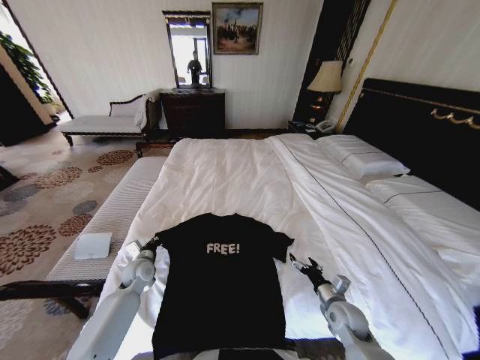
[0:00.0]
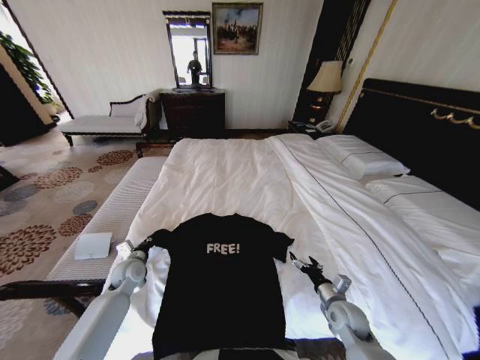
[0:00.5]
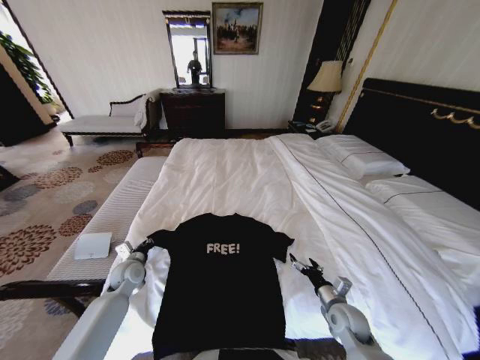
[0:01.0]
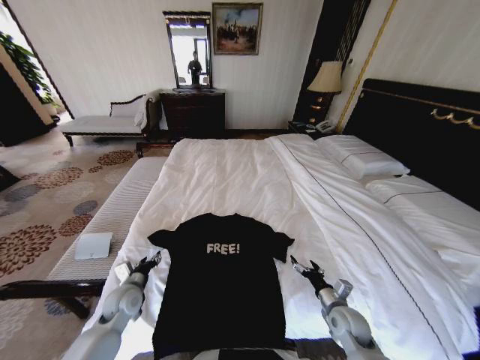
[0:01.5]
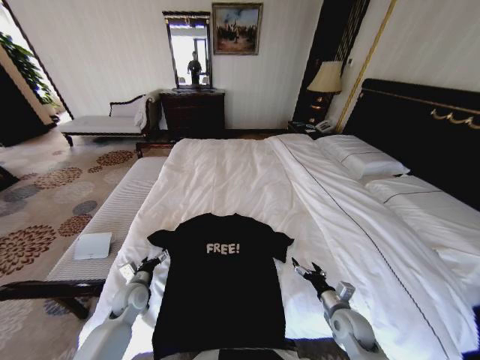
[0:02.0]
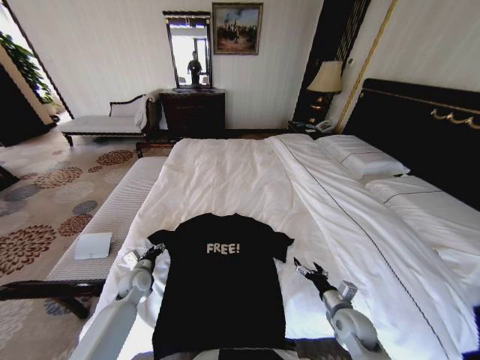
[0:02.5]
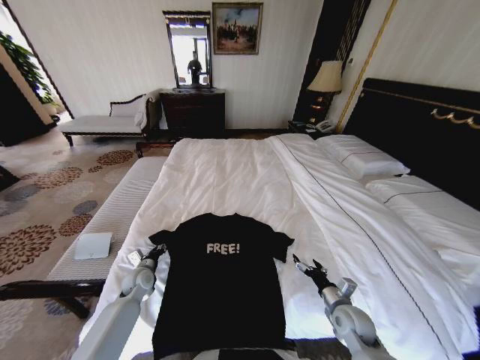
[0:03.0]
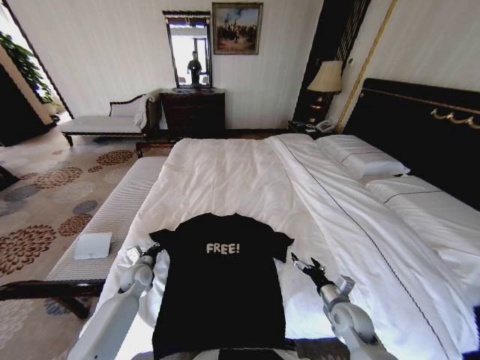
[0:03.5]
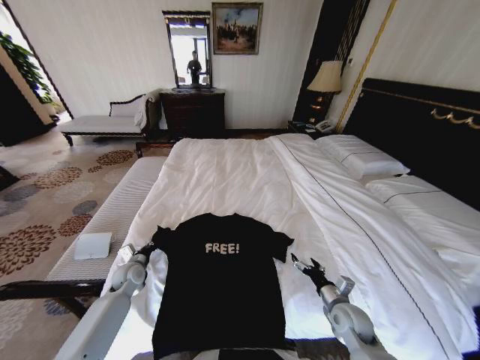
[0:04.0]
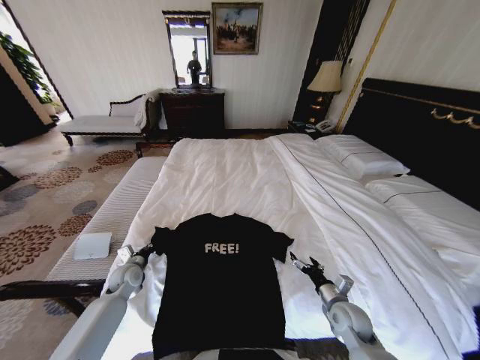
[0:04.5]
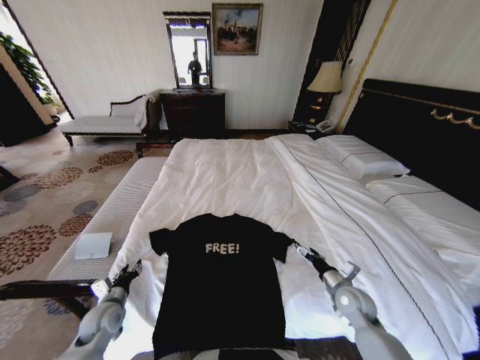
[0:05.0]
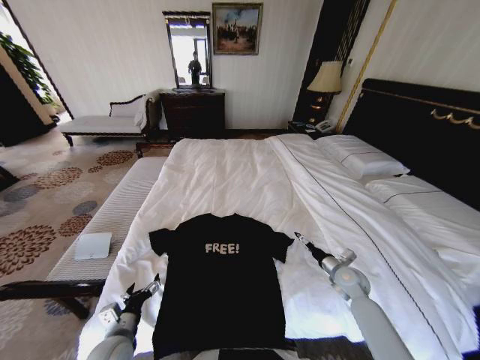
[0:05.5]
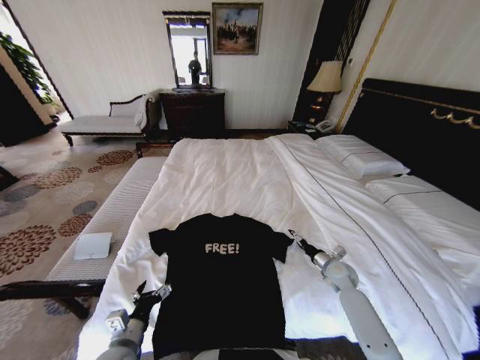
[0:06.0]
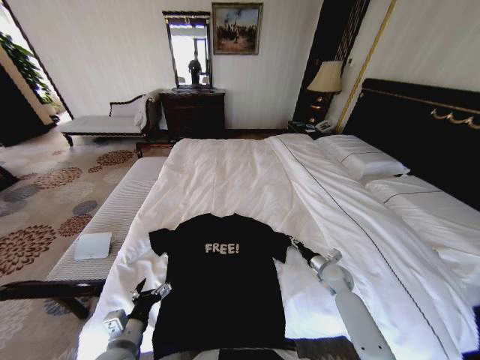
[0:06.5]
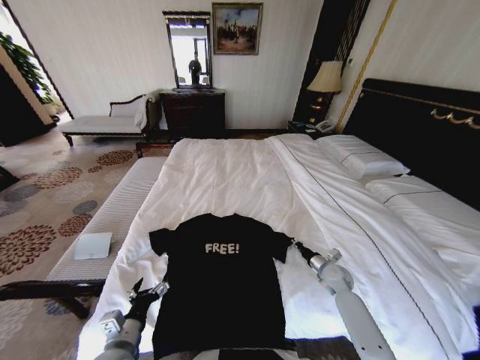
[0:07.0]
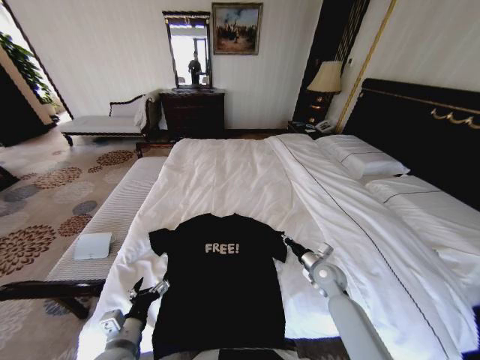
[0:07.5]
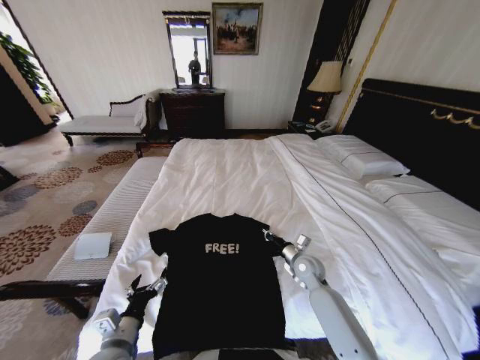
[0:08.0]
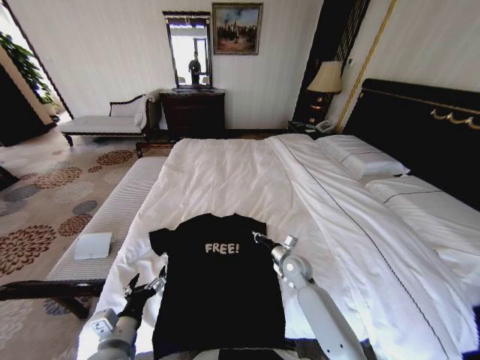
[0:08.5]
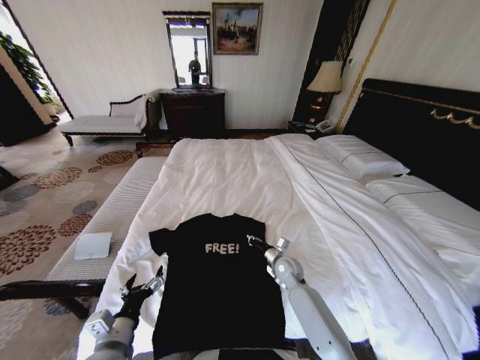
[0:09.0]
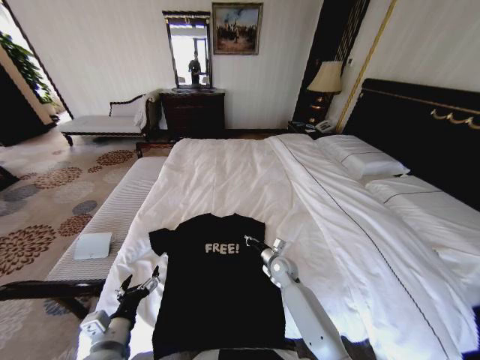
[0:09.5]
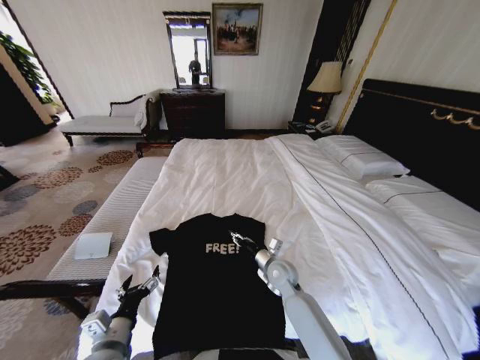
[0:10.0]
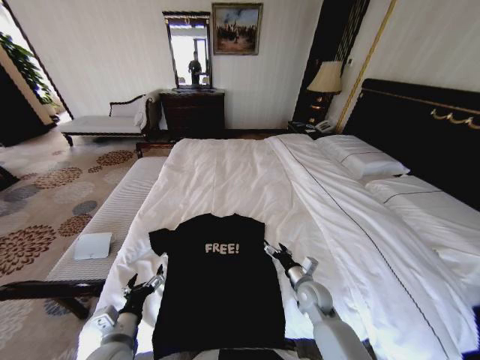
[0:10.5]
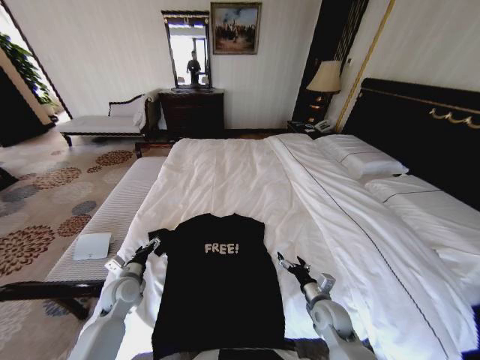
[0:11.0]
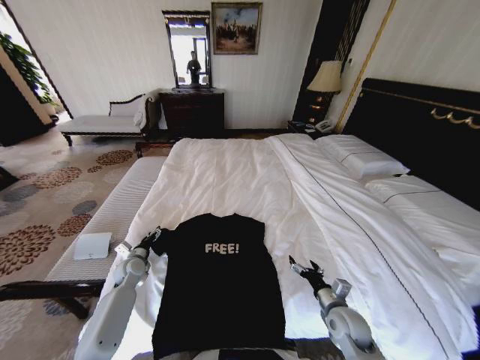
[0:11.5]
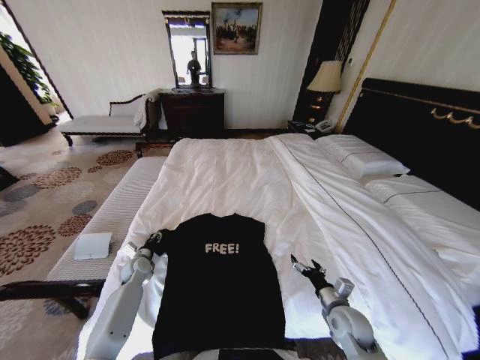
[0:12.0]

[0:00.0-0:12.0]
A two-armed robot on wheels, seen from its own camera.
Task of the whole recording: Fold the clothes on the bed.
0:00.0 to 0:02.0: The left gripper moves backward, about 5 cm, and opens.
0:02.0 to 0:04.0: The left gripper heads forward, covering approximately 5 cm, and closes up.
0:04.0 to 0:06.0: The right gripper is displaced forward and to the right by about 15 cm, while the left gripper goes some 25 cm backward, and opens its fingers.
0:06.0 to 0:08.0: The right gripper travels to the left by roughly 15 cm, and closes its fingers.
0:08.0 to 0:10.0: The right gripper is displaced to the left by approximately 10 cm, and opens its fingers.
0:10.0 to 0:12.0: The right gripper goes approximately 20 cm to the right and backward, and opens its fingers. Meanwhile the left gripper heads forward and downward, covering approximately 30 cm, and closes.

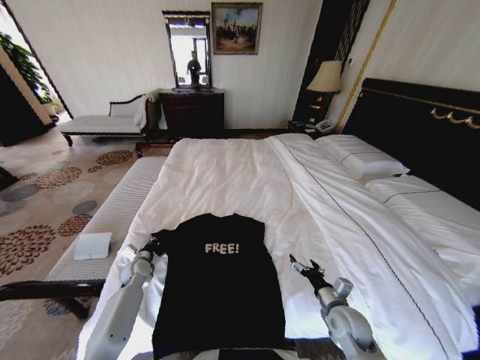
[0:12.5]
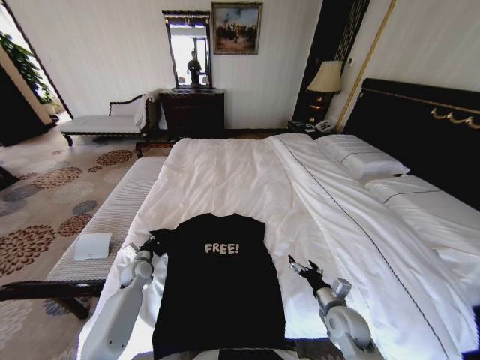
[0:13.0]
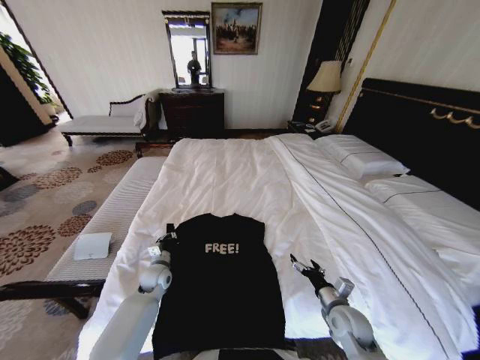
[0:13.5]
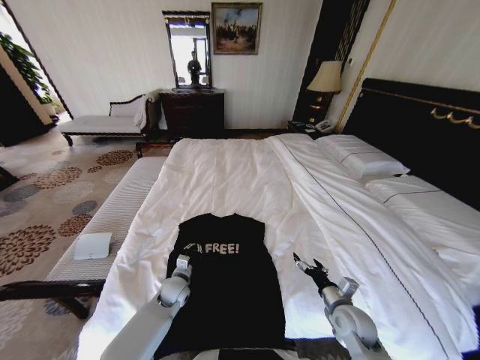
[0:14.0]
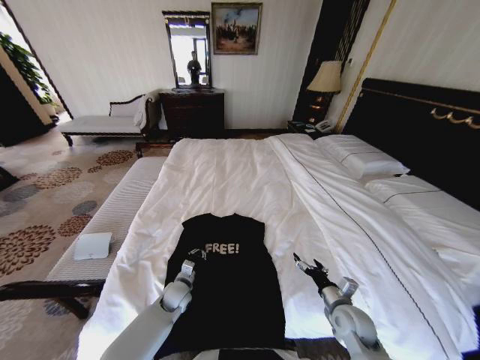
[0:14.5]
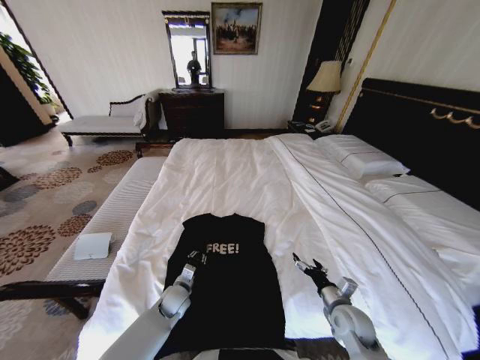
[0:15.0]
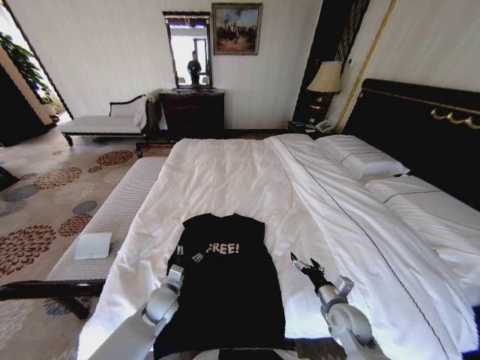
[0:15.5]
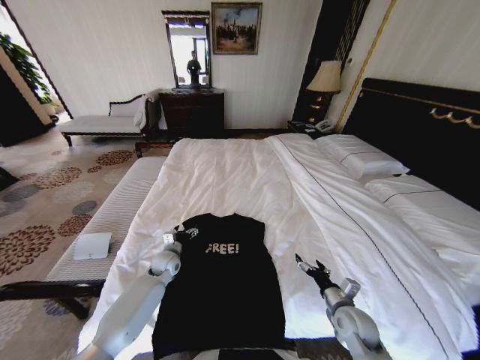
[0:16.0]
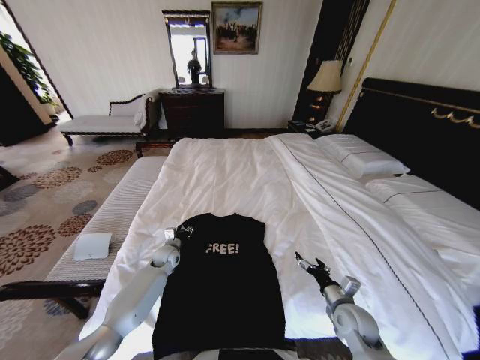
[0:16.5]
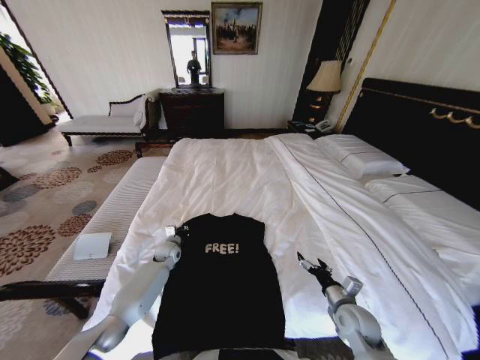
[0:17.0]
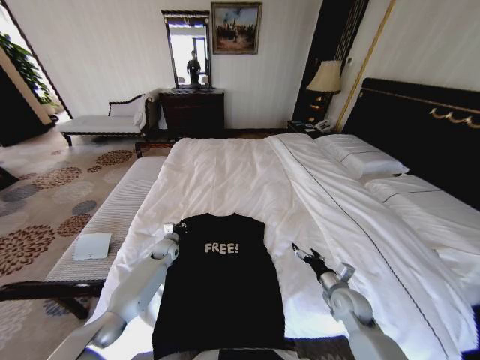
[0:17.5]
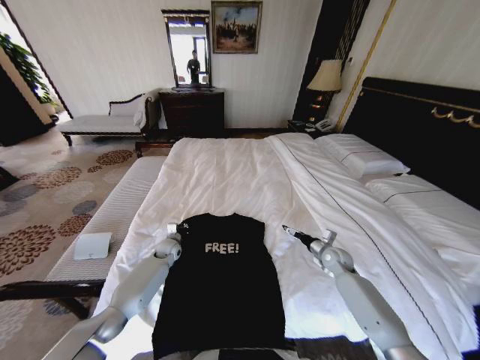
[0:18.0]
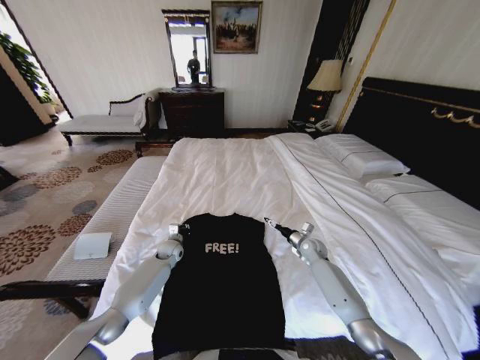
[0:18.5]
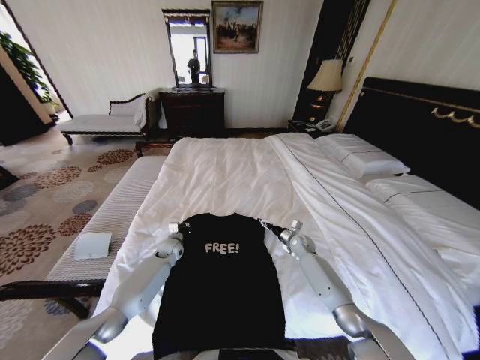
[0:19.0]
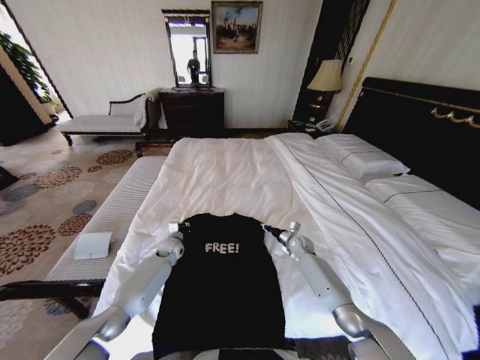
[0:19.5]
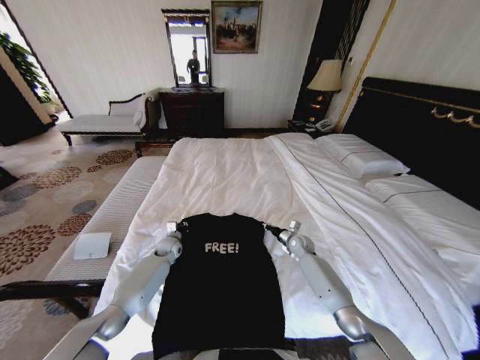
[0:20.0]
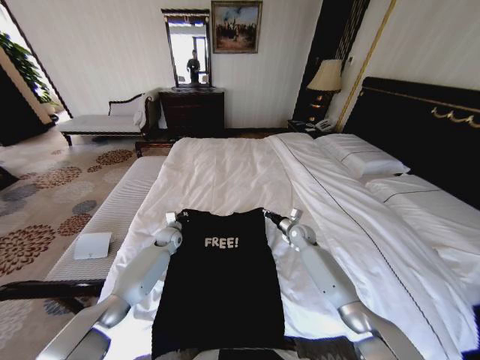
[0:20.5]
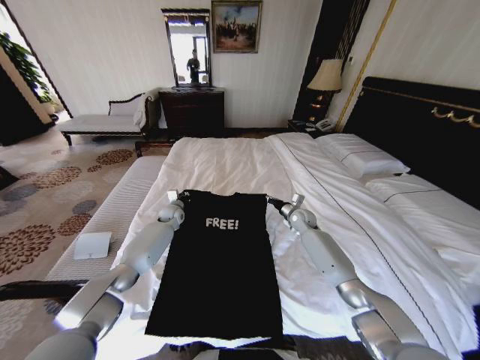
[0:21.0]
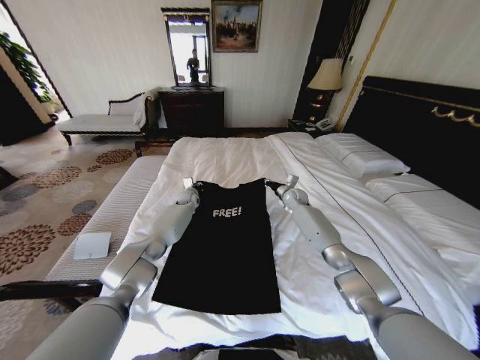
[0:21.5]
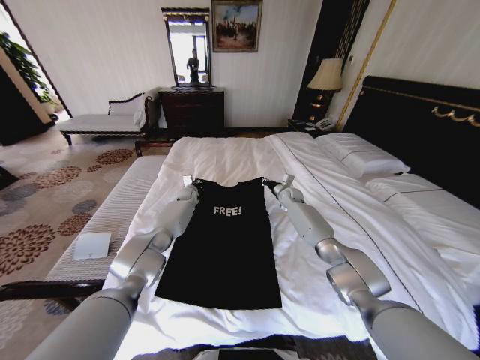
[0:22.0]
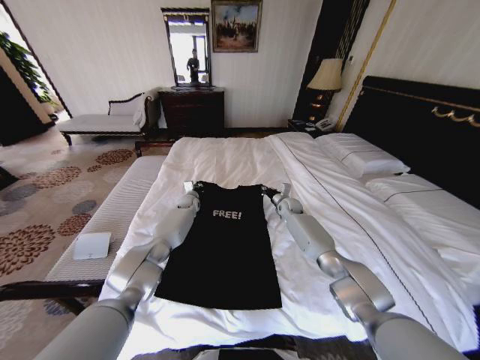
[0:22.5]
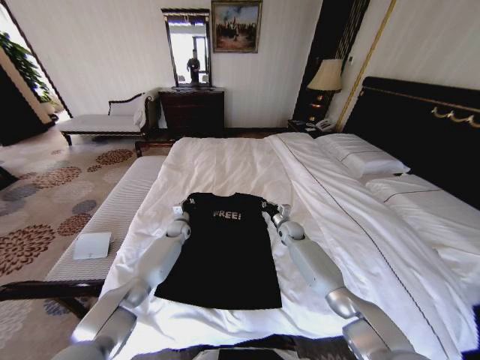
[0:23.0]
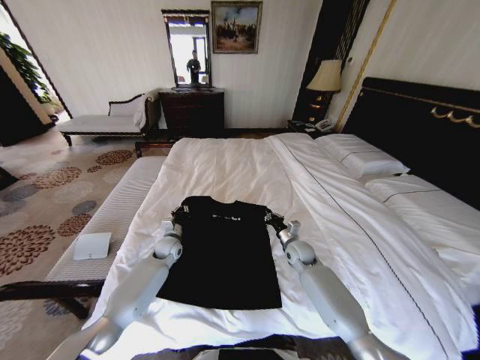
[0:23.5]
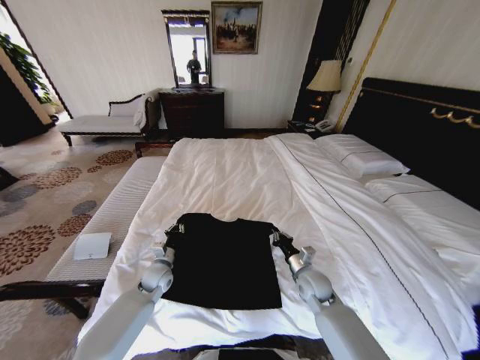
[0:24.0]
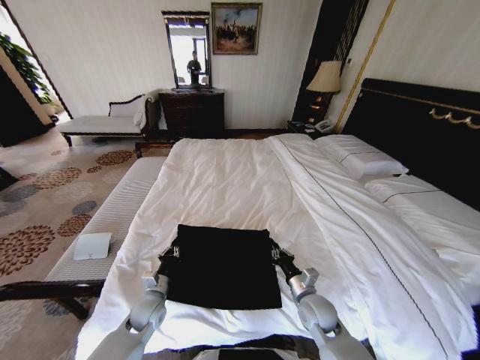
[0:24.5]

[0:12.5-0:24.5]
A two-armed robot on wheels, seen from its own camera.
Task of the whole recording: Fold the clothes on the bed.
0:12.5 to 0:14.5: The left gripper shifts about 20 cm to the right and backward.
0:14.5 to 0:16.5: The left gripper heads forward and to the left, covering roughly 15 cm, and opens its fingers.
0:16.5 to 0:18.5: The right gripper shifts approximately 25 cm forward; the left gripper closes its fingers.
0:18.5 to 0:20.5: The left gripper shifts by some 5 cm; the right gripper ends up about 10 cm from where it was, and closes its fingers.
0:20.5 to 0:22.5: The left gripper shifts roughly 15 cm forward and to the right; the right gripper travels forward by roughly 10 cm.
0:22.5 to 0:24.5: Both grippers travel together backward, about 40 cm.

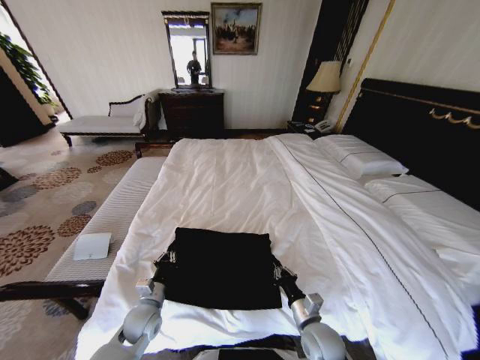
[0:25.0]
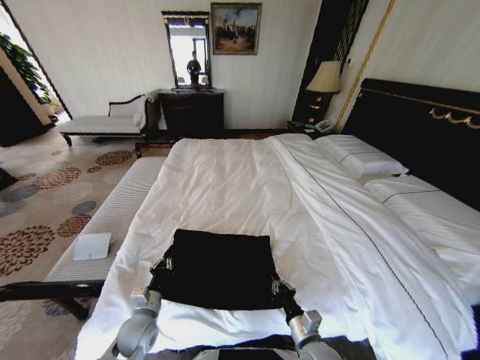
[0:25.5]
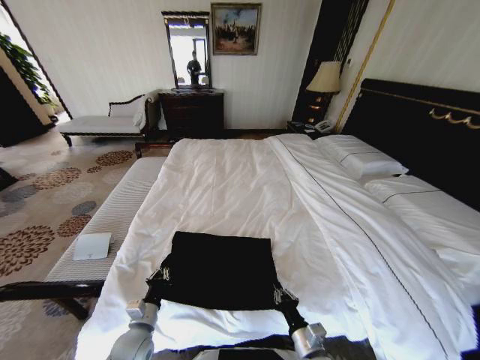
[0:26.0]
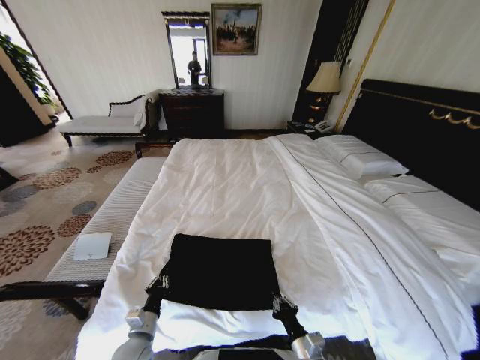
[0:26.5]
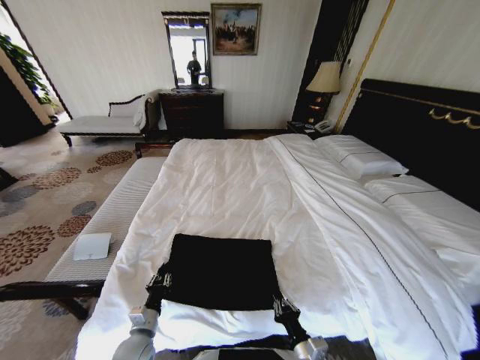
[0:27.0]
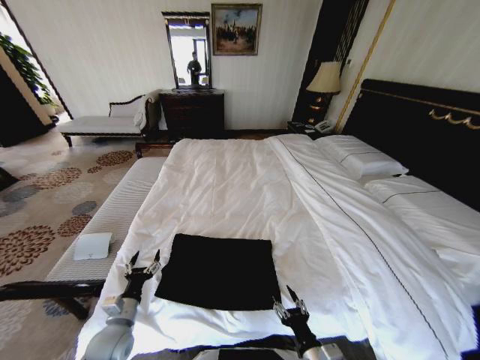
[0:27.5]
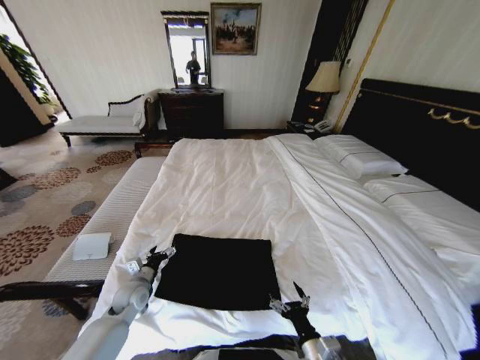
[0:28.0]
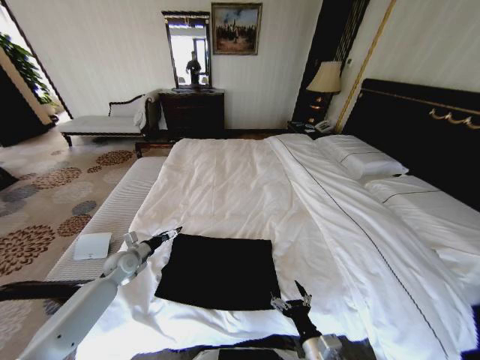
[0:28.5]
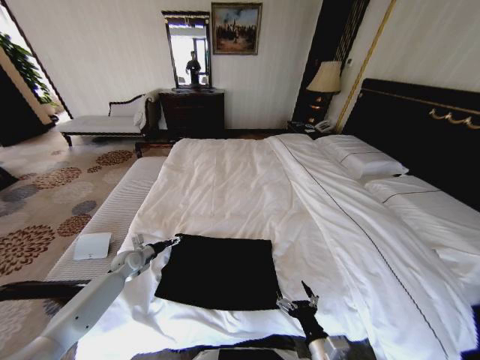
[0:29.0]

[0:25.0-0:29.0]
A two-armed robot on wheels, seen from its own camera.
Task of the whole recording: Fold the clothes on the bed.
0:25.0 to 0:27.0: The two grippers go some 10 cm backward.
0:27.0 to 0:29.0: The right gripper opens; the left gripper is displaced forward and to the left by some 25 cm, and opens up.
